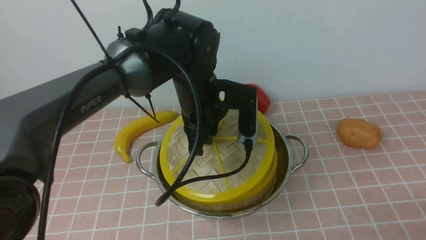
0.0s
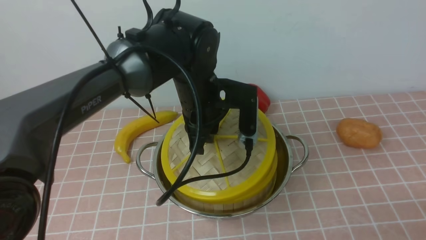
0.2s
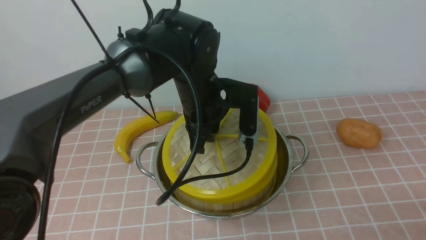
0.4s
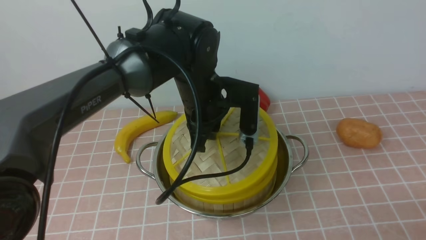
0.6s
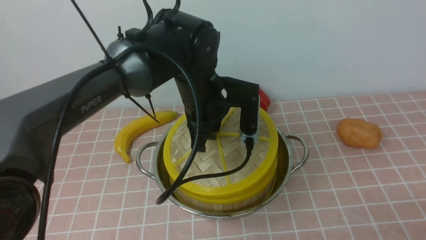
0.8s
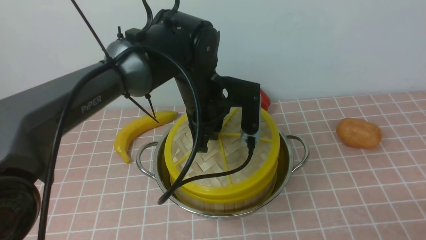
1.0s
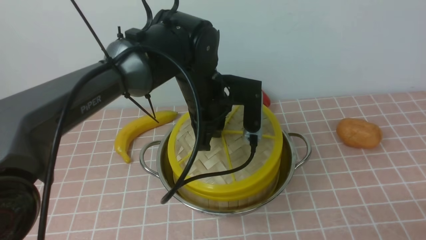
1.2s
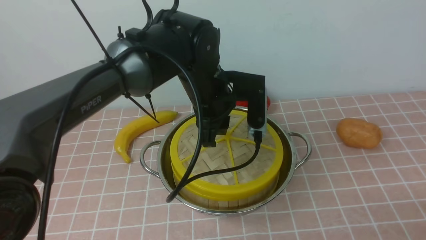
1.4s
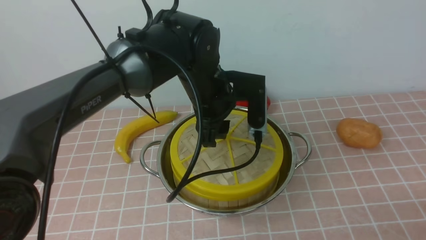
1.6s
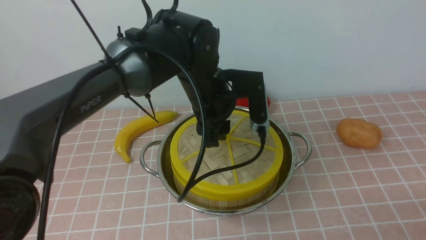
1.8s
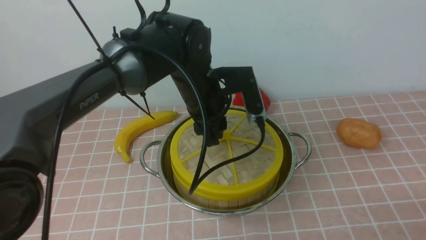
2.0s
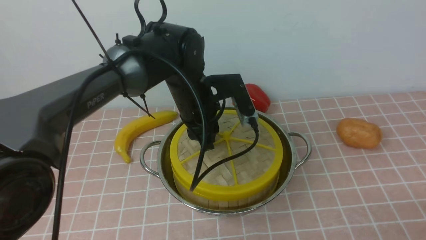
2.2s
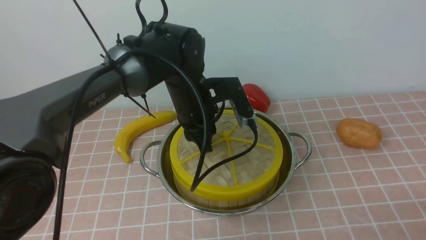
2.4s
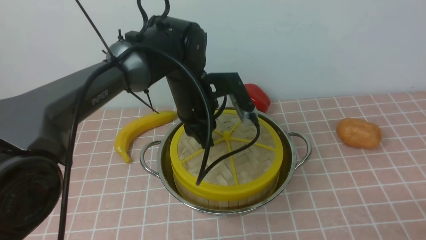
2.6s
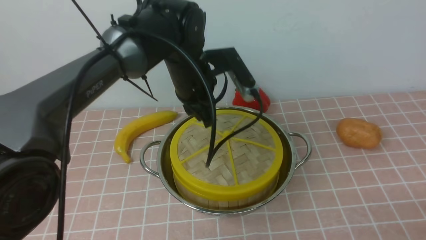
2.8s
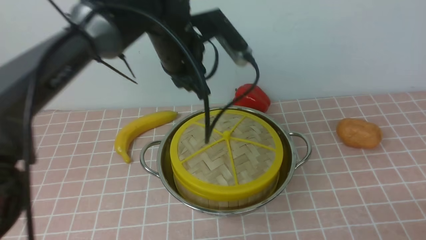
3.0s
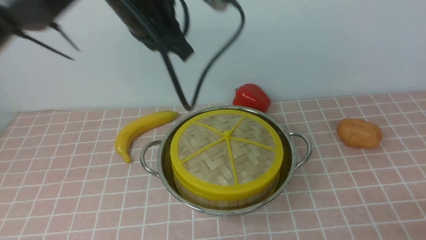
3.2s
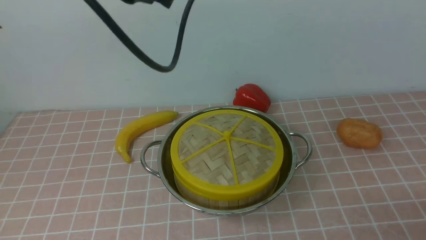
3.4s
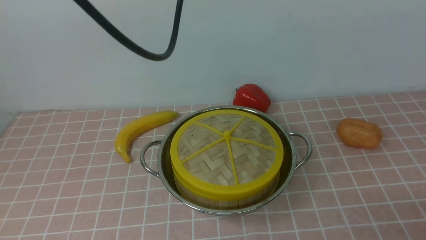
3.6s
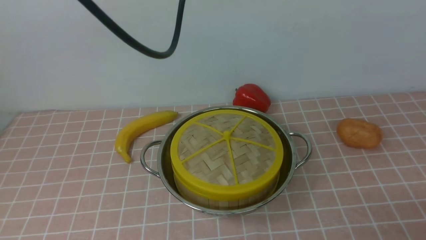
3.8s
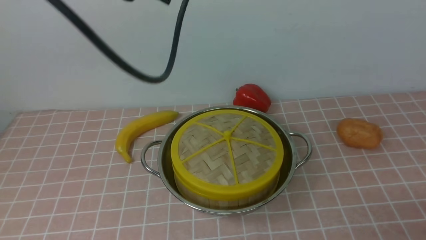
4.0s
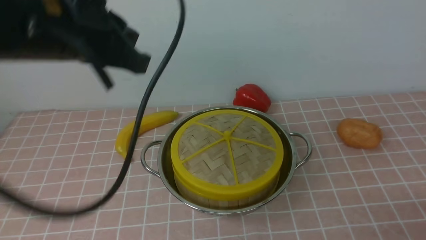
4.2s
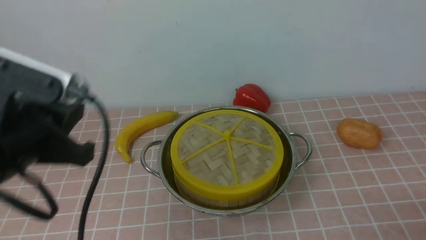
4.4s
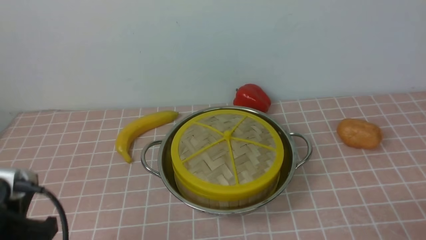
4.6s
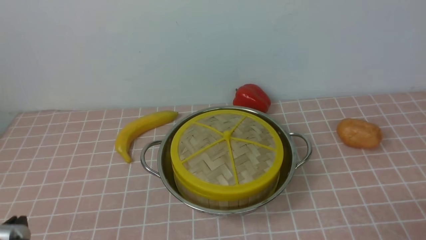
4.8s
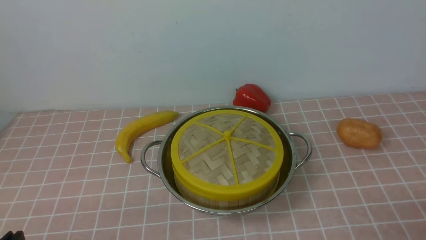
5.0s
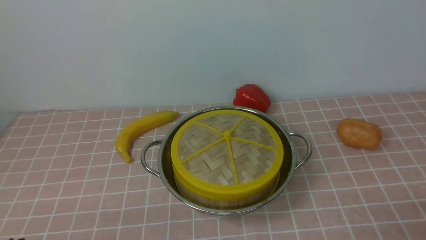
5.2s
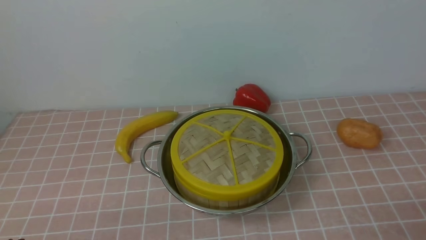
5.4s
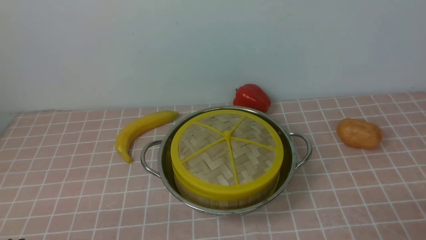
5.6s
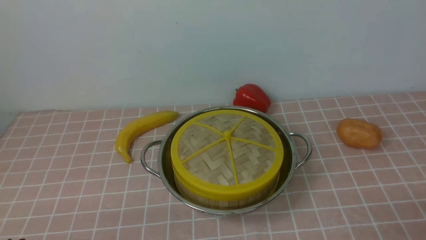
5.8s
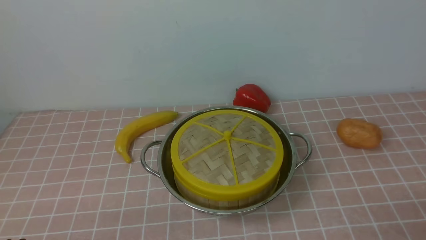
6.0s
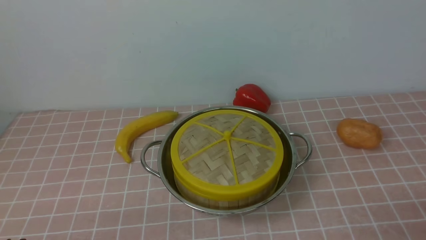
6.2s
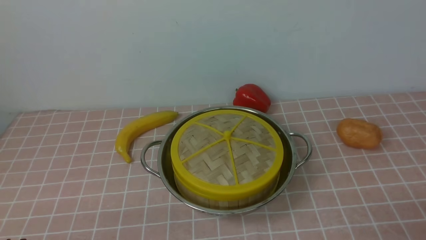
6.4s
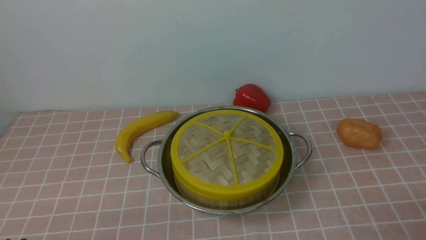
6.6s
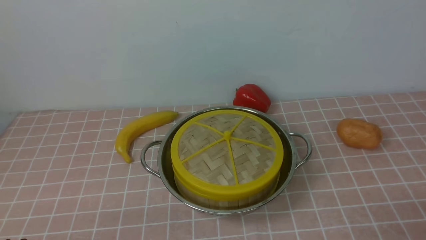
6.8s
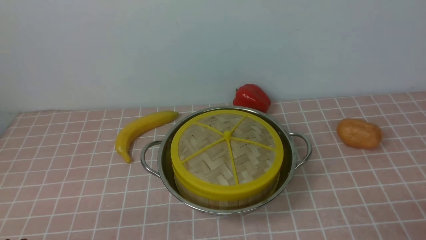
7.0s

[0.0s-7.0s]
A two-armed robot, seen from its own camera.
Task of the whole recording: place the steamer in the pot on the pink tablecloth, and put the lid on the steamer.
Step, 0.0s to 2.6s: use the left arm to place the steamer lid on the steamer.
0.0s to 1.4s: The left gripper opens.
2.8s to 4.2s: The left gripper is displaced backward, to the left and upward by roughly 20 cm, and closes up.
4.2s to 5.6s: The left gripper goes approximately 30 cm downward and backward.
5.6s to 7.0s: Both grippers stay put.

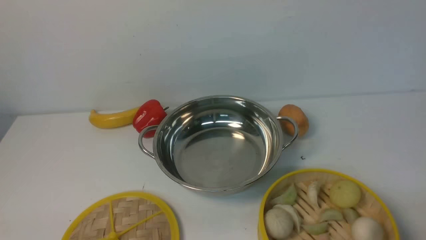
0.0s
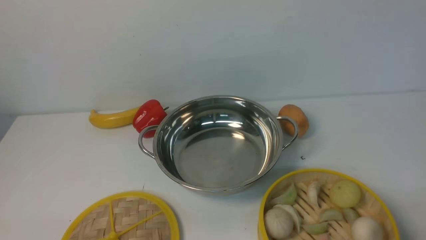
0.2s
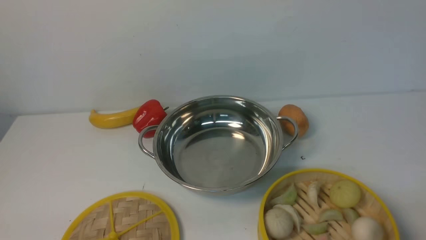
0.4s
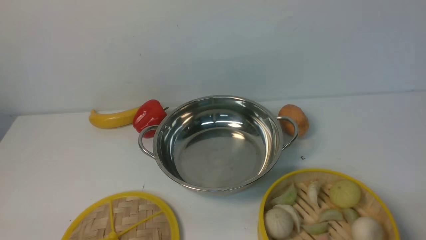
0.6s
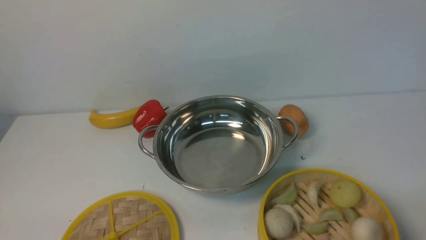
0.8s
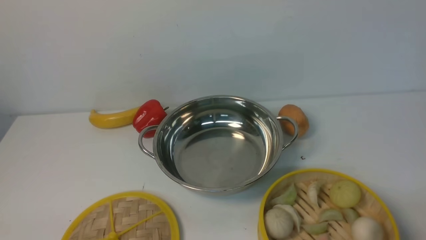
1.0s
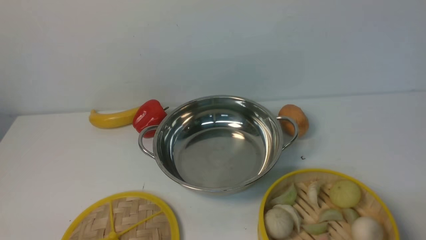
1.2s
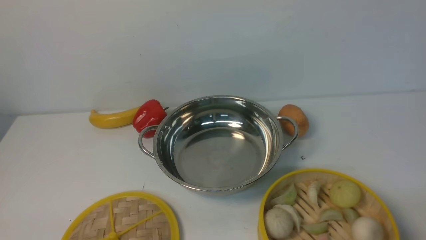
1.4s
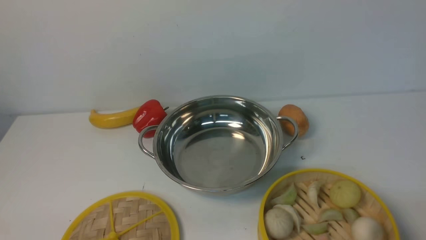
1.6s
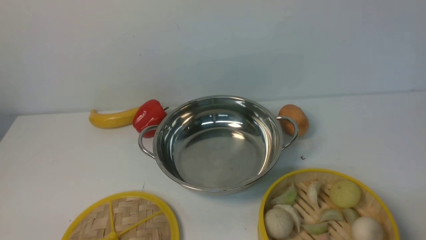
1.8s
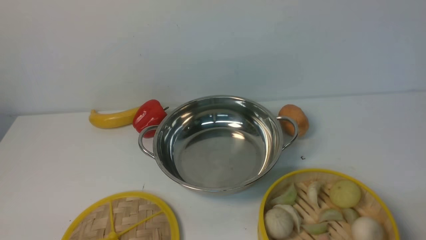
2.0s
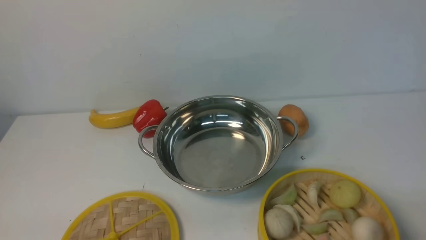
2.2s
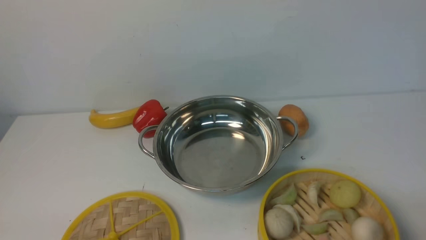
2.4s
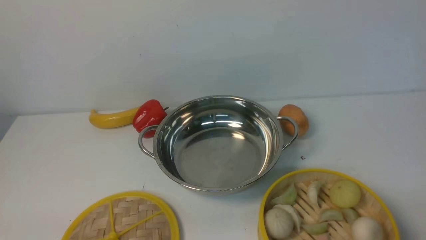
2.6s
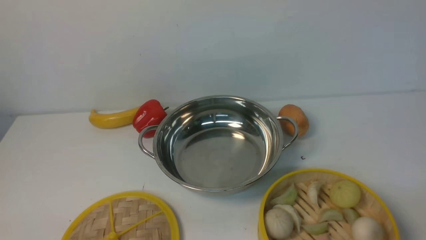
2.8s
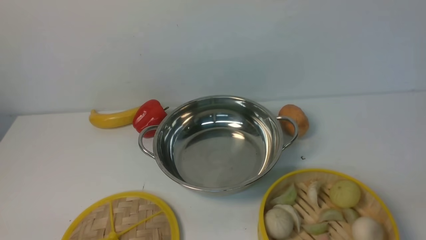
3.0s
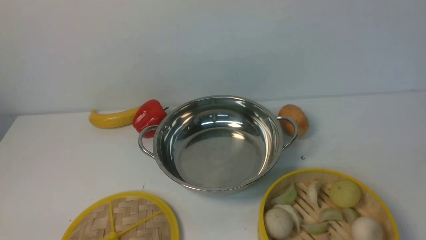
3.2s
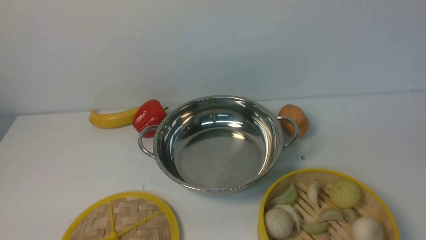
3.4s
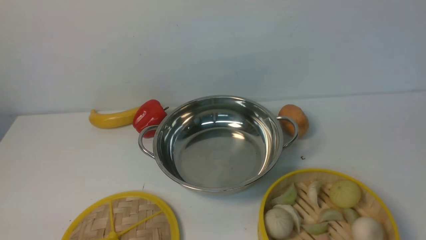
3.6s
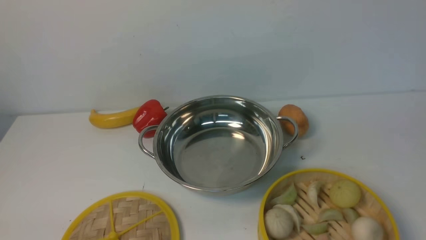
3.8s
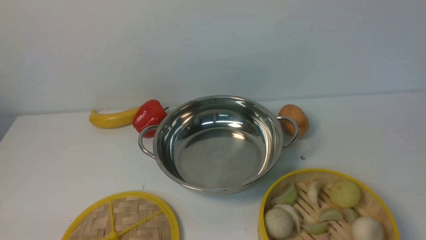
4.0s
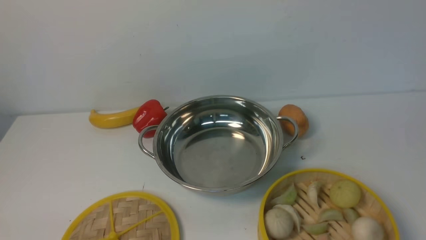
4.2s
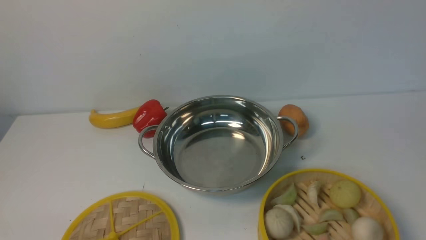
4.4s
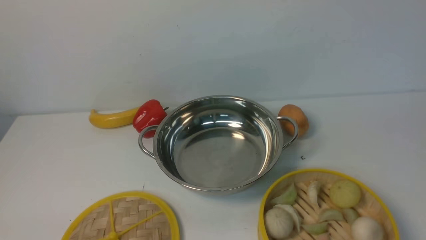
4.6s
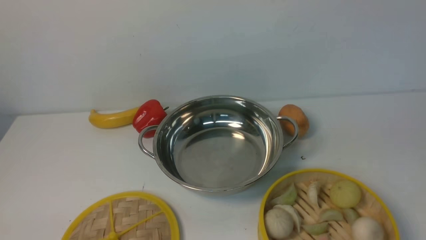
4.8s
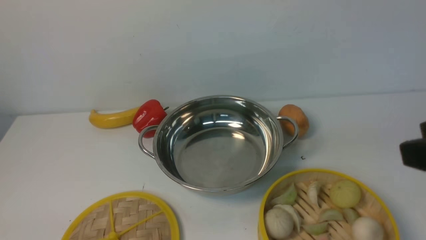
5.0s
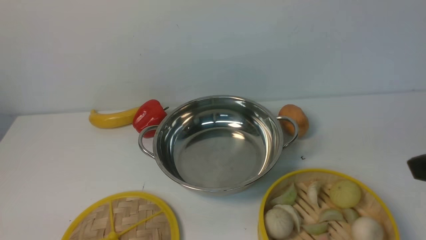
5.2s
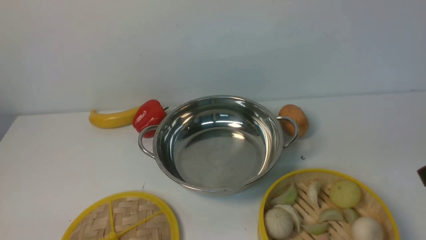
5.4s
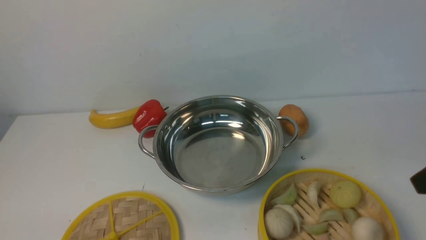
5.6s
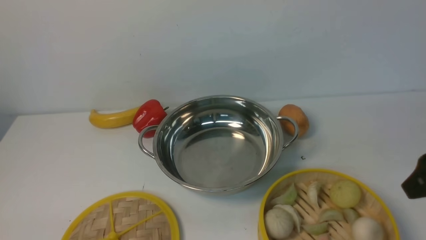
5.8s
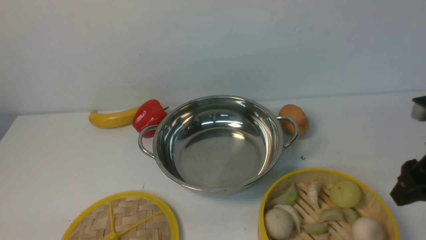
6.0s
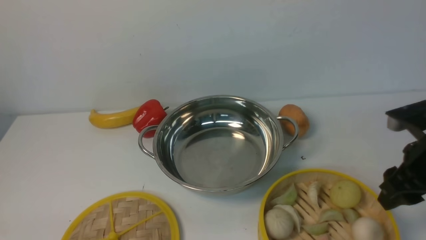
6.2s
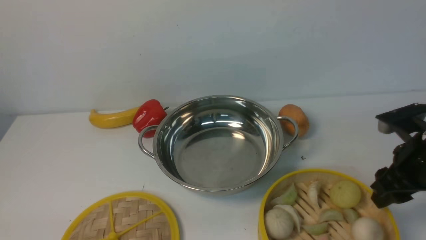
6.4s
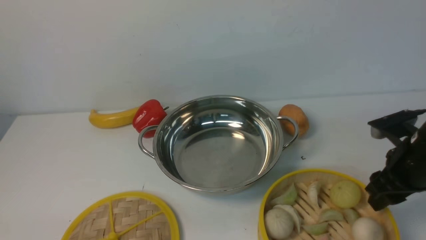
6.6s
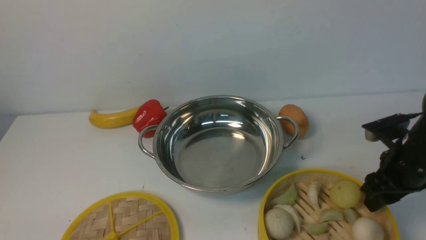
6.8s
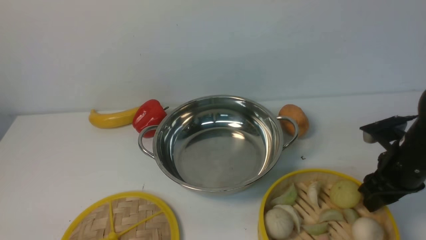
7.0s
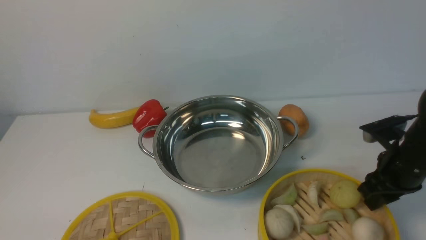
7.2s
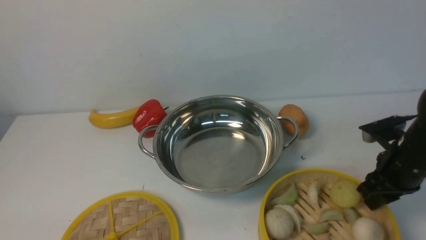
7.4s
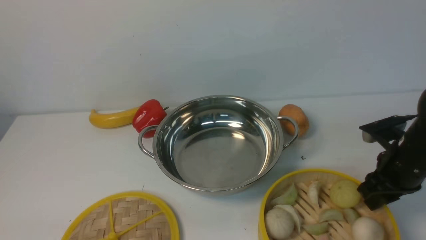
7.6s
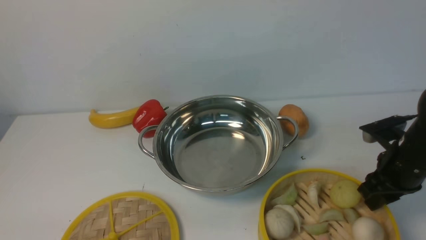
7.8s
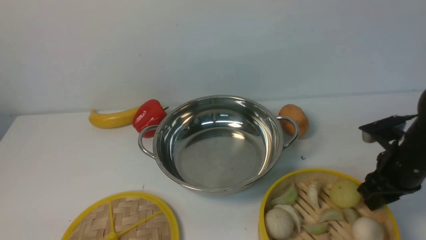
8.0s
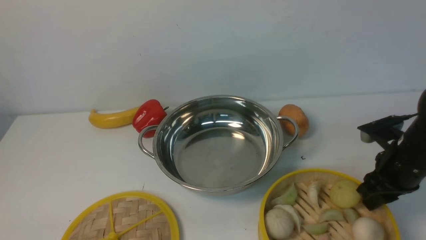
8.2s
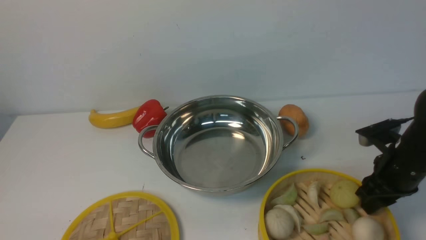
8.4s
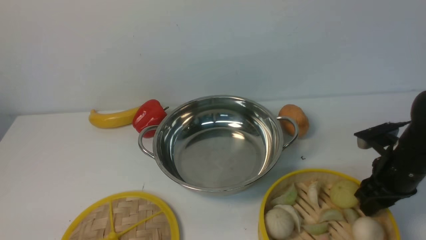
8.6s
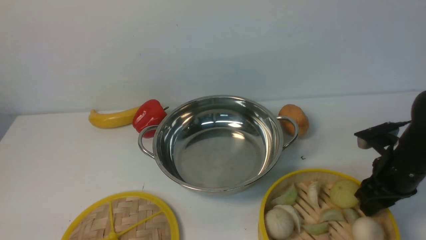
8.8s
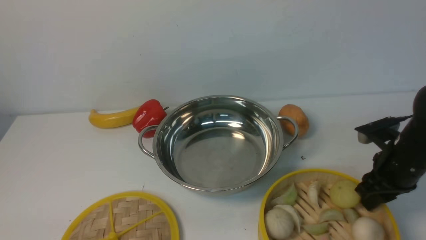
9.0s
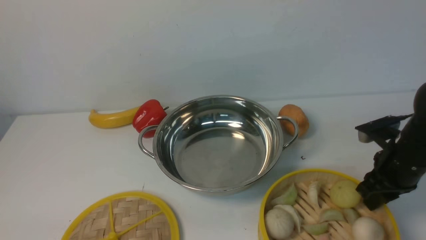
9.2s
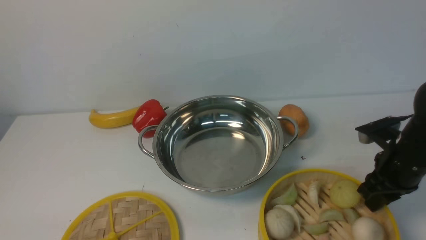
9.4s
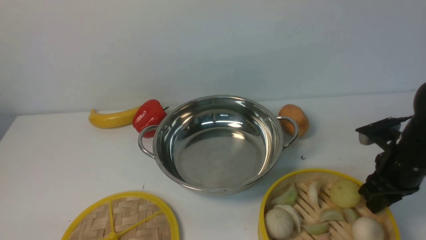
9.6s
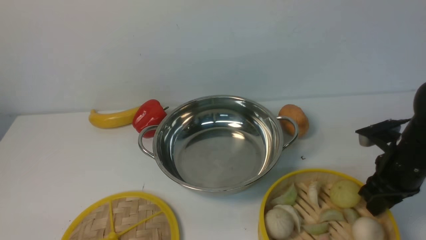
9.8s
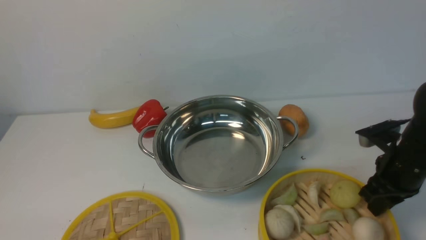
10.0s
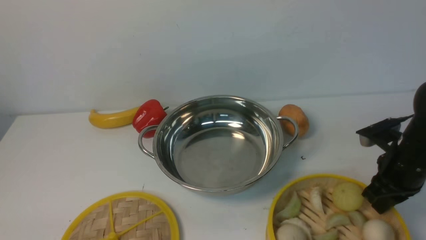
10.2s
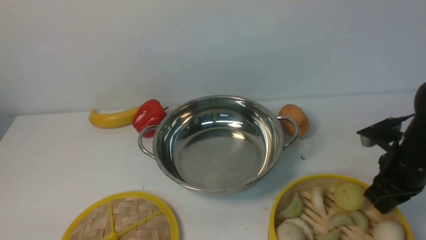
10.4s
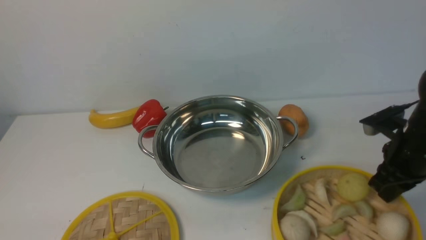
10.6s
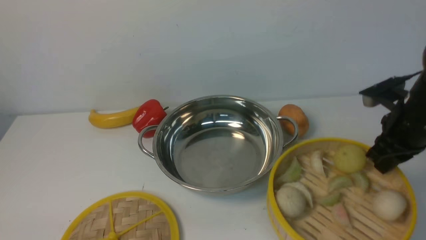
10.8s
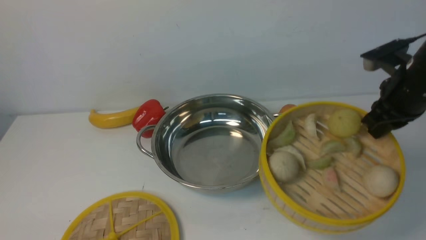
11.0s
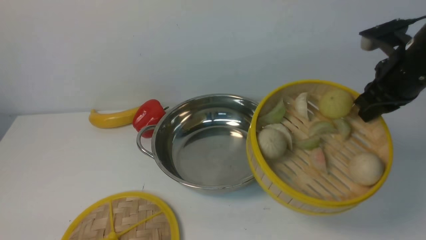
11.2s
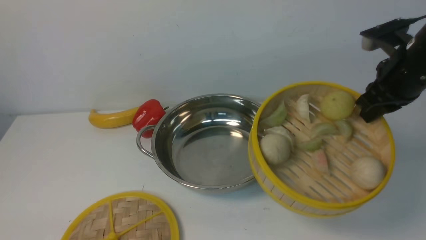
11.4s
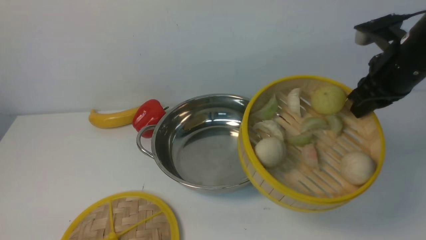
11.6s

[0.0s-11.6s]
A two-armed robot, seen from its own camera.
Task of the whole recording: place the steamer in the pot on the white table, and put the lid on the steamer.
Step, 0.0s to 11.0s: use the right arm to lift the steamer closest to it.
0.0s to 1.4s: The two grippers keep their place.
4.4s to 5.8s: The right gripper is displaced forward and downward by some 20 cm.
5.8s to 7.2s: The right gripper heads downward and forward, covering approximately 15 cm.
7.2s to 8.8s: Neither gripper changes place.
8.8s to 10.2s: The right gripper closes its fingers.
10.2s to 11.6s: The right gripper travels upward and forward by some 15 cm.
